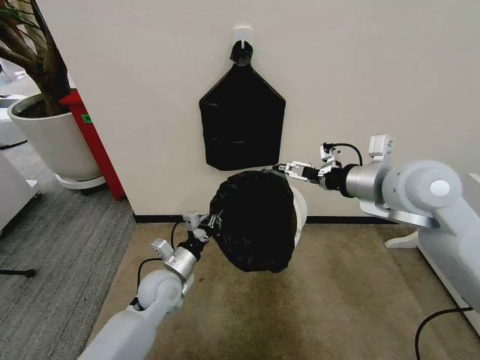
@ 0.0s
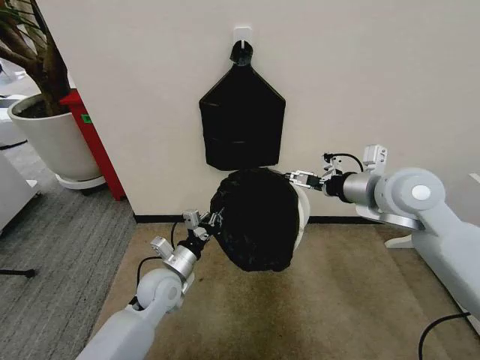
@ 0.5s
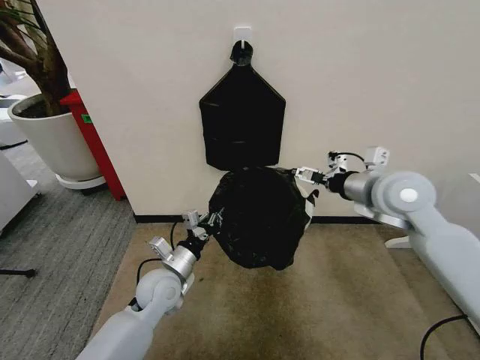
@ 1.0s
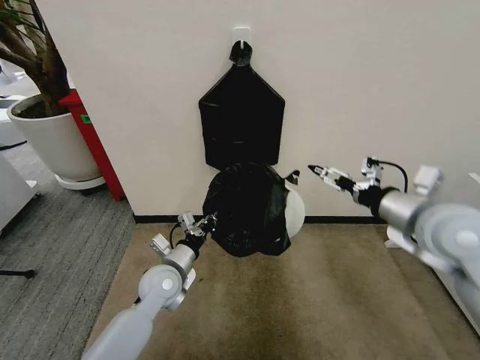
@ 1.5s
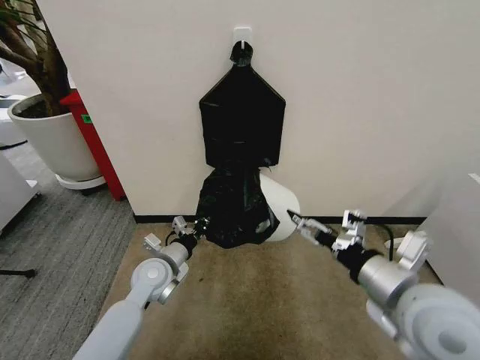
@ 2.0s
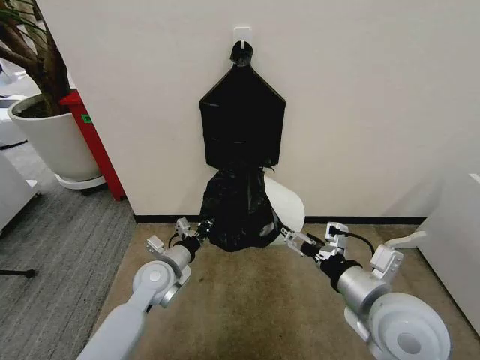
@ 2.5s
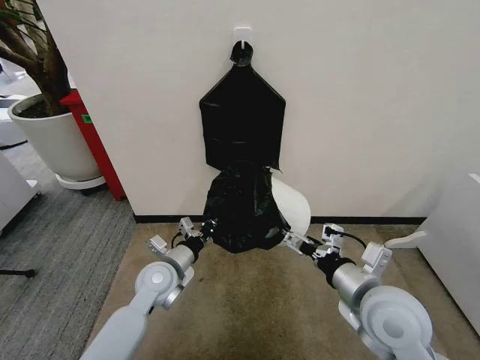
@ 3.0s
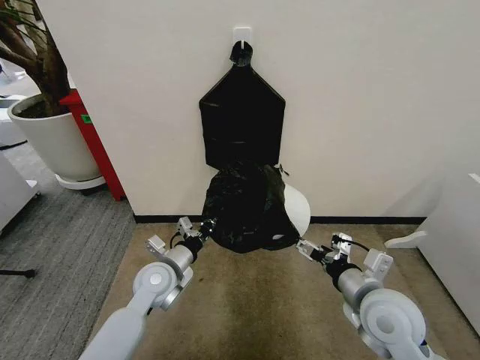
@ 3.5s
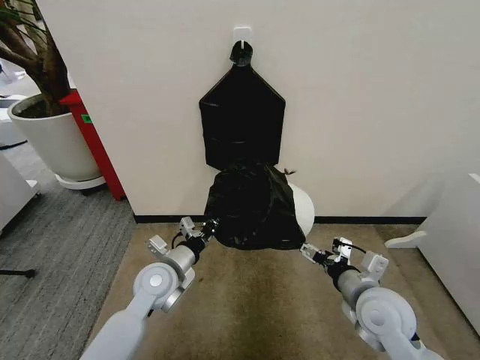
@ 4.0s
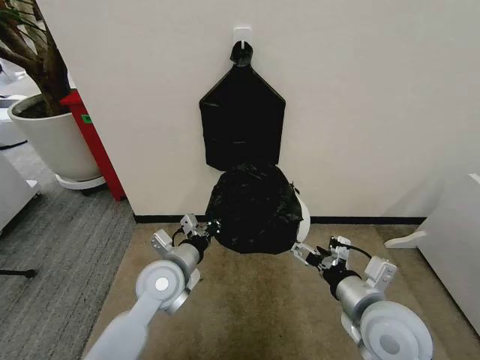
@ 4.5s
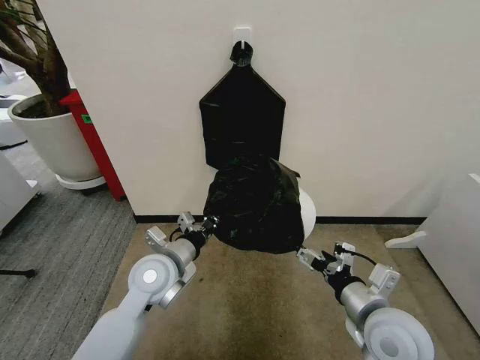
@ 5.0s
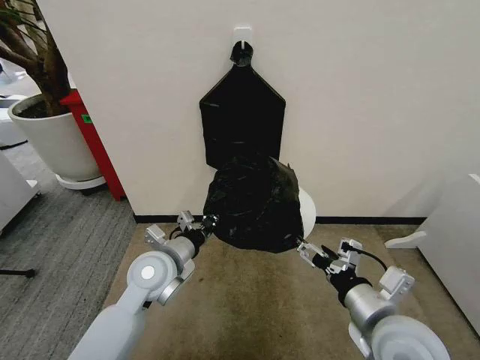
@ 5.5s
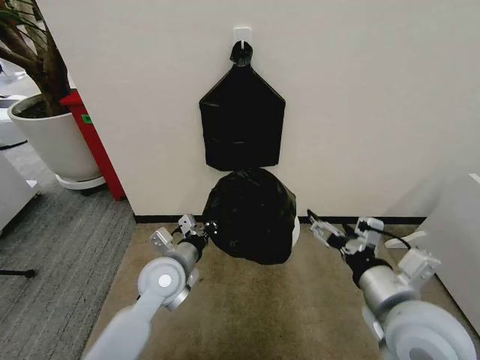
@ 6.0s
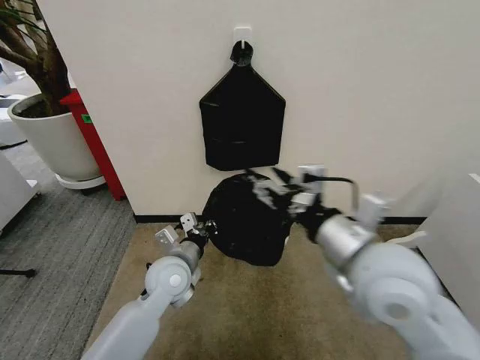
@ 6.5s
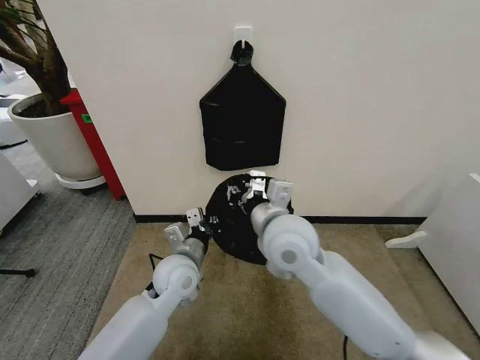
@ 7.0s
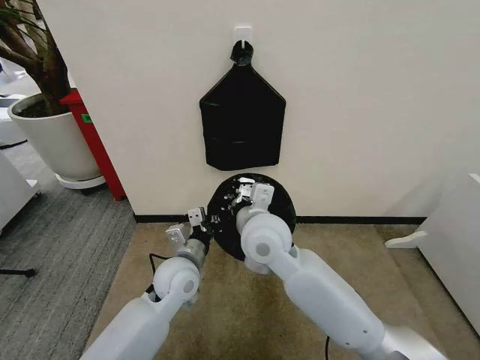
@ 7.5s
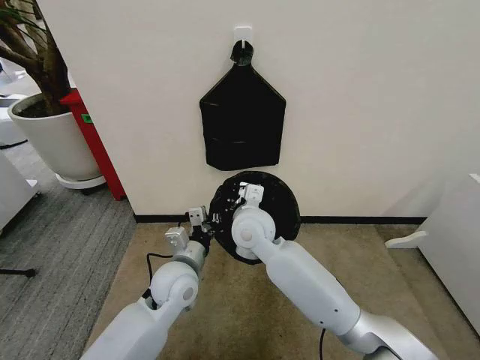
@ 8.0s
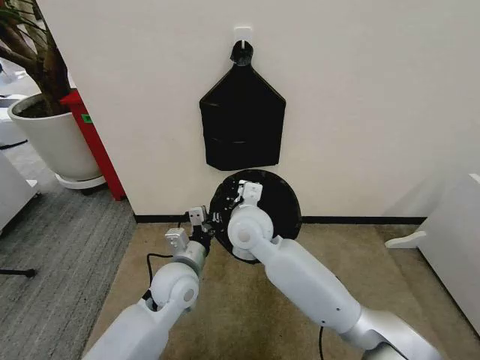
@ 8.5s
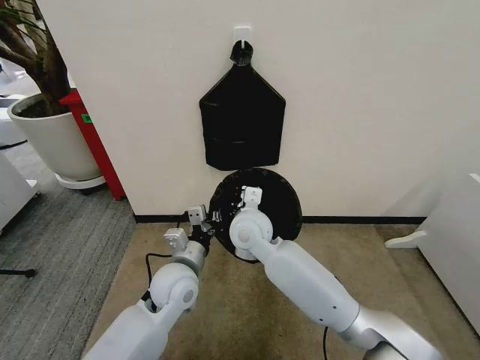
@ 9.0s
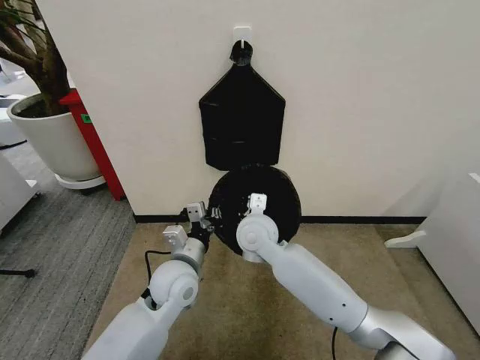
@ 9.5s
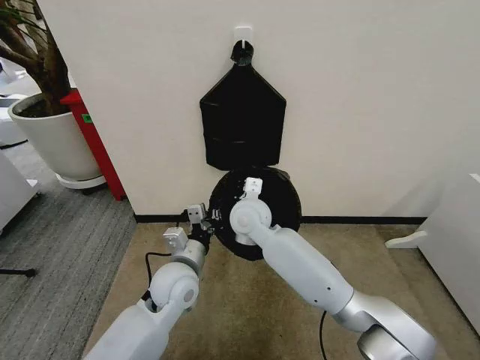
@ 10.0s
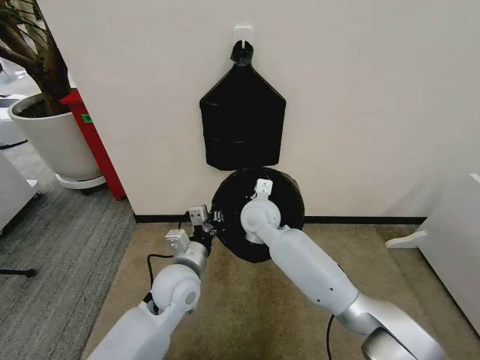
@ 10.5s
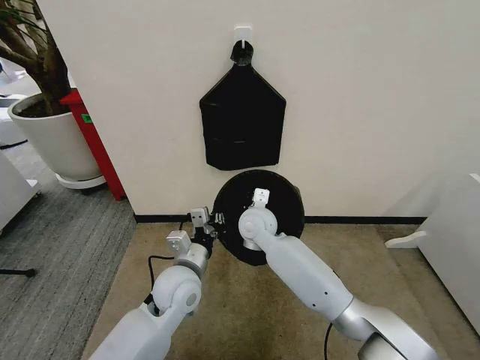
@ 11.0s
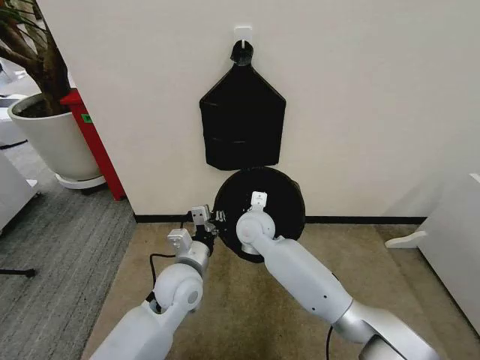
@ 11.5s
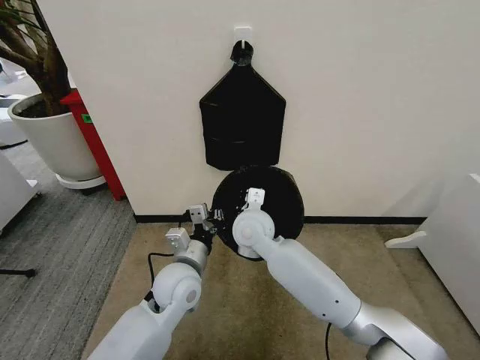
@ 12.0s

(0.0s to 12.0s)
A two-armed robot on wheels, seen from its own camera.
Task of the whole recording: Place the garbage bag over the trash bin.
0.0s - 2.0s: The right gripper goes roughly 20 cm backward and downward.
2.0s - 4.0s: The right gripper goes roughly 15 cm downward and forward.
4.0s - 6.0s: The right gripper is displaced upward and backward by approximately 15 cm.
6.0s - 8.0s: The right gripper heads to the left and forward, covering about 30 cm, and closes its fingers.
8.0s - 10.0s: There are only small adjustments of the grippers.

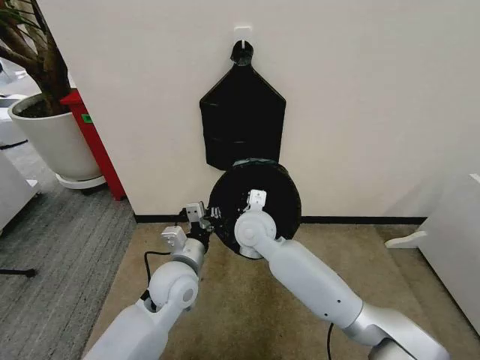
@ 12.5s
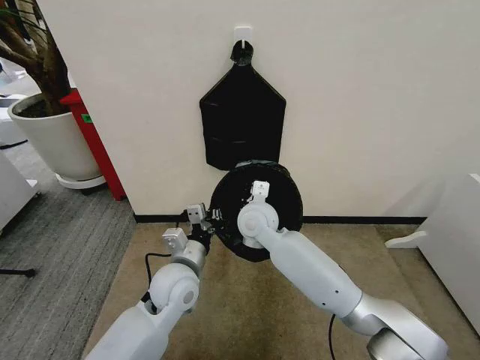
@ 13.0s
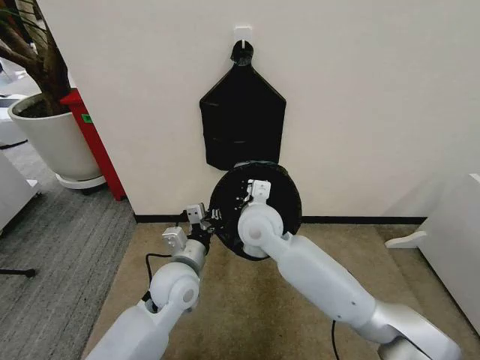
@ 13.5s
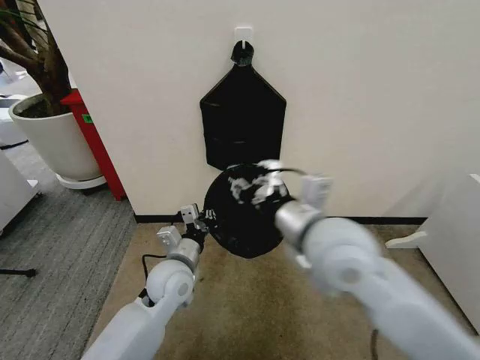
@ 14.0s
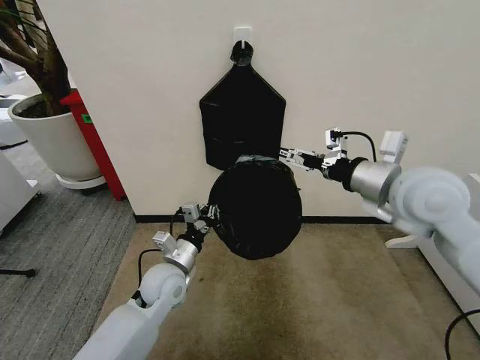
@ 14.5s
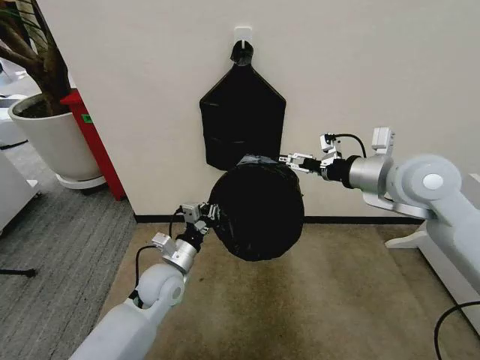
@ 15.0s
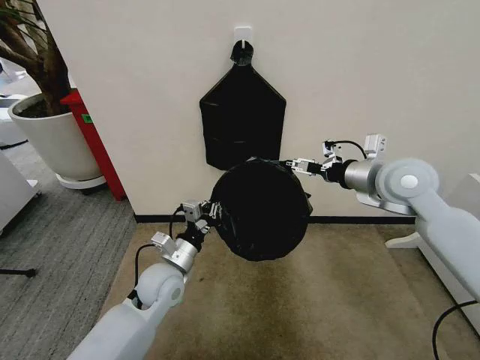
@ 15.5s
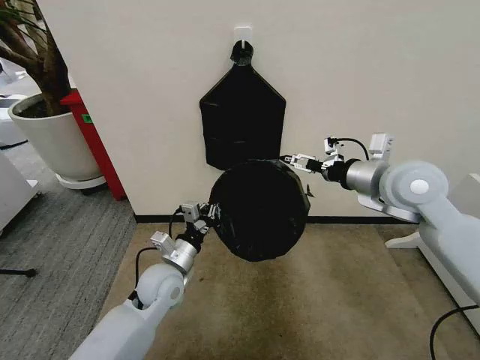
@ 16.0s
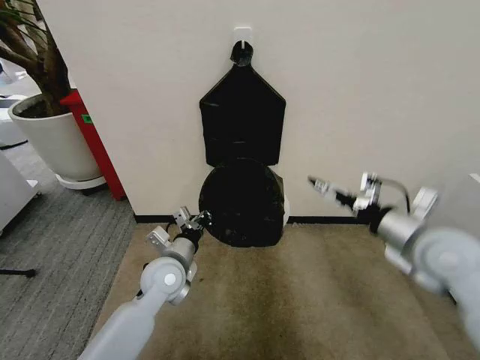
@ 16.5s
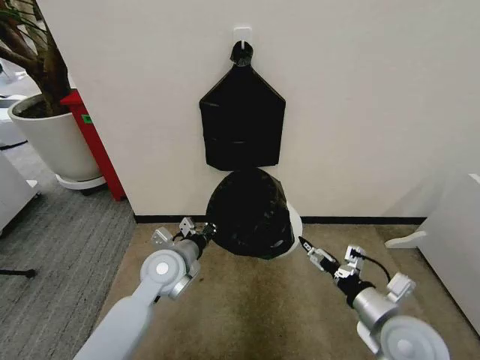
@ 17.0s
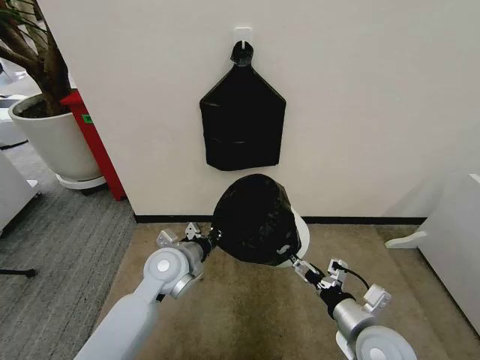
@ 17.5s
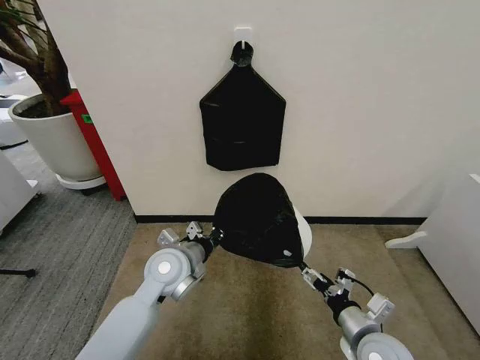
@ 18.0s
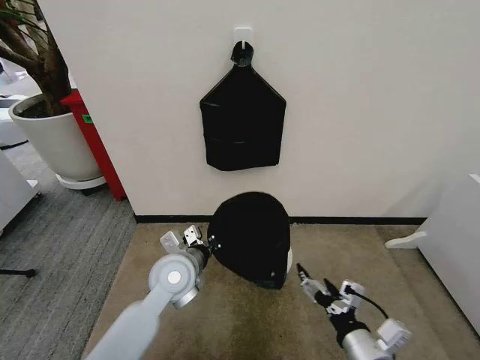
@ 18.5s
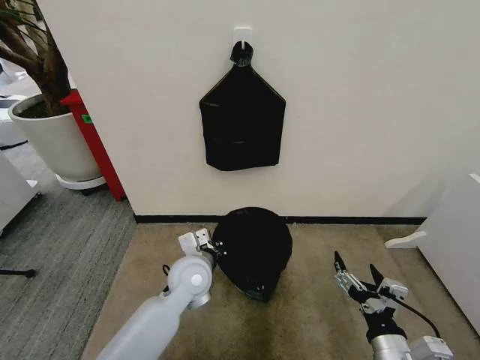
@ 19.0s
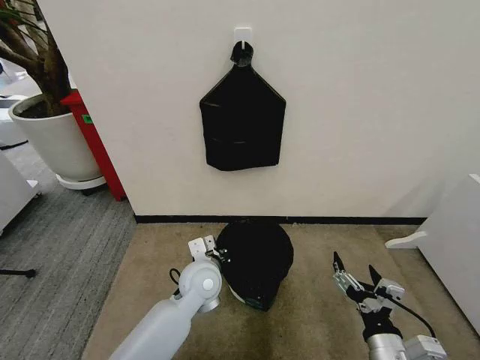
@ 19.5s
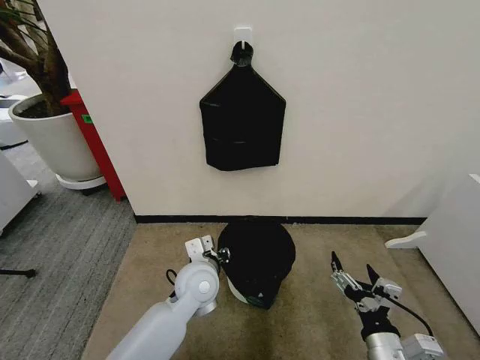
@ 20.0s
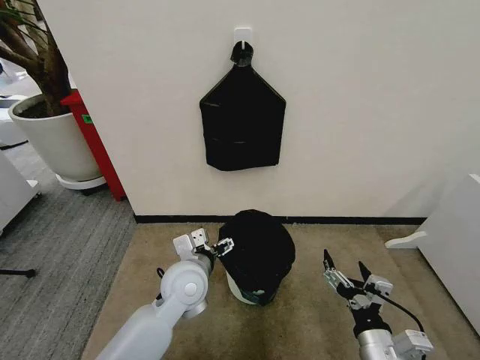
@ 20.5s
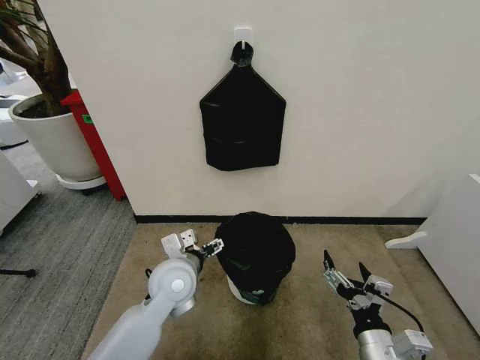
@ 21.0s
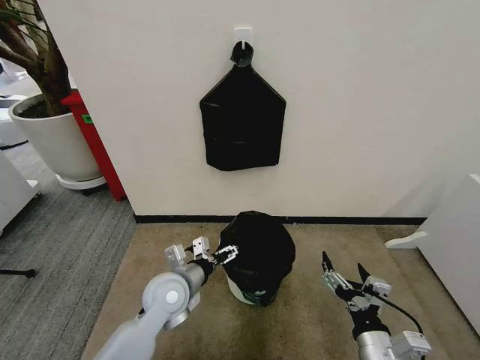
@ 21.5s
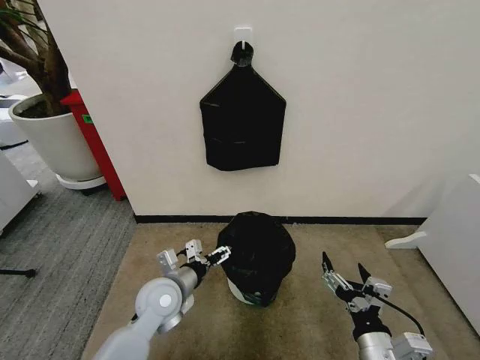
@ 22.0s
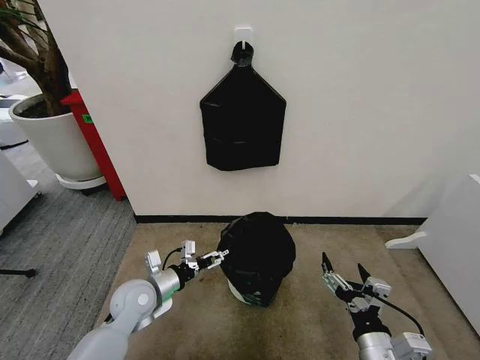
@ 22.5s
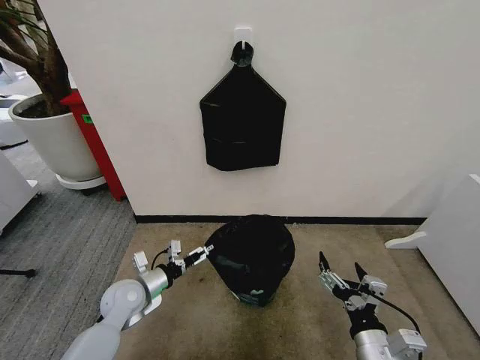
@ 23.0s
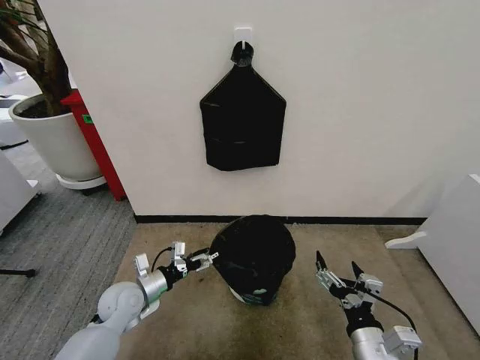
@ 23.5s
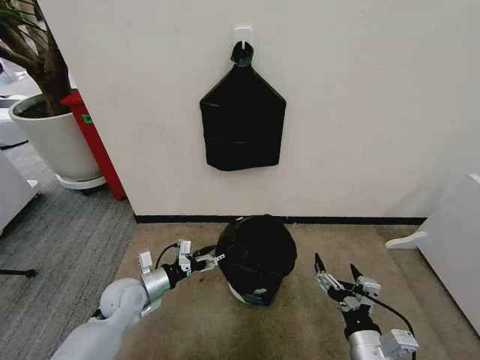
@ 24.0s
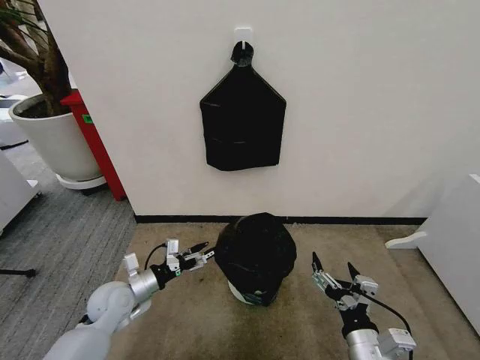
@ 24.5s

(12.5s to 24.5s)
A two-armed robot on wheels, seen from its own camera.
Task of the whole recording: Place the garbage bag over the trash bin.
12.5s - 14.5s: The right gripper travels to the right and upward by about 30 cm, and opens; the left gripper moves some 5 cm.
14.5s - 16.5s: The right gripper goes about 10 cm to the right and downward, and reaches roughly 5 cm forward, then returns.
16.5s - 18.5s: The right gripper moves backward, downward and to the left, roughly 30 cm. The left gripper moves some 5 cm.
18.5s - 20.5s: The left gripper opens.
20.5s - 22.5s: The left gripper shifts approximately 15 cm to the left and downward.
22.5s - 24.5s: The left gripper moves to the left, approximately 5 cm.

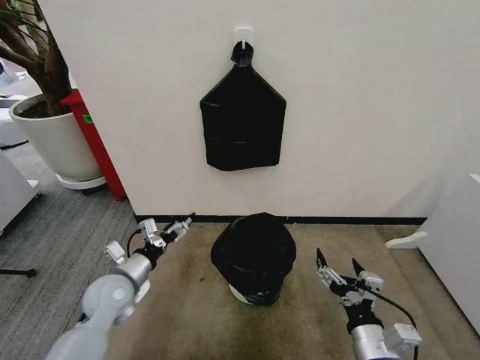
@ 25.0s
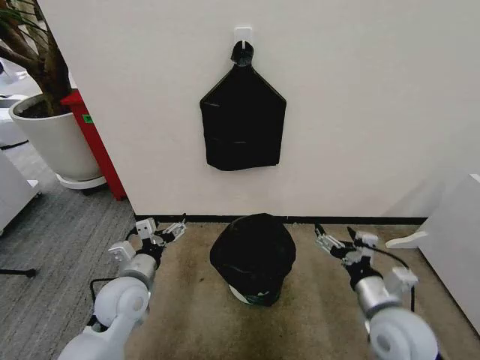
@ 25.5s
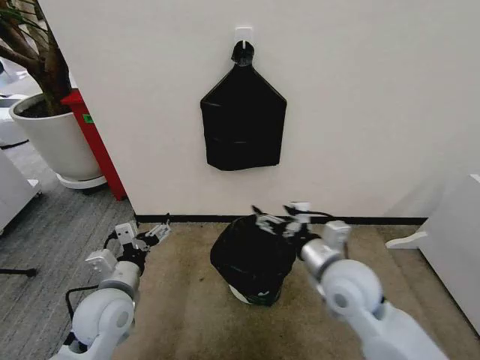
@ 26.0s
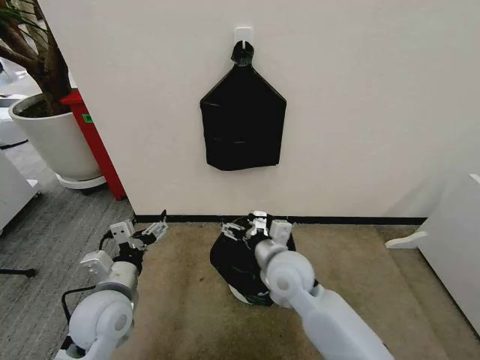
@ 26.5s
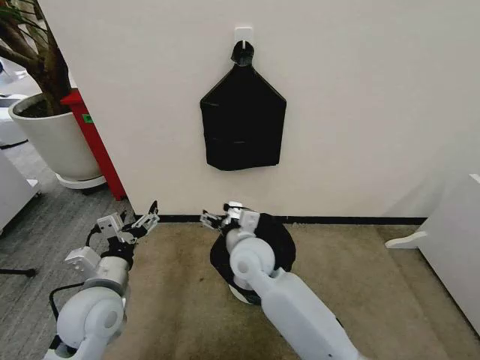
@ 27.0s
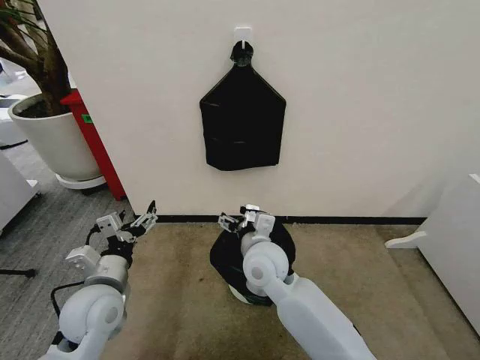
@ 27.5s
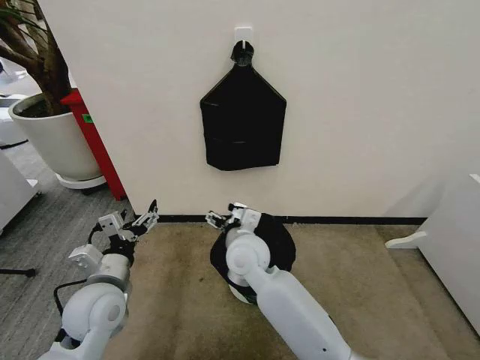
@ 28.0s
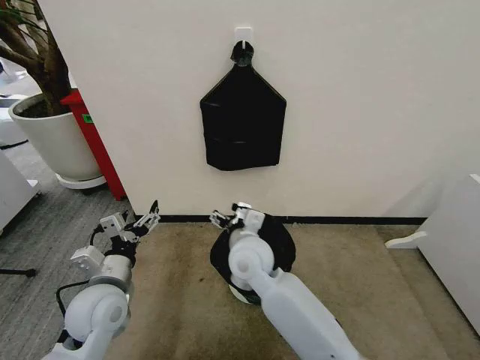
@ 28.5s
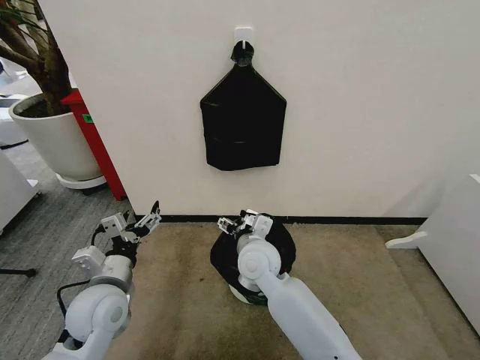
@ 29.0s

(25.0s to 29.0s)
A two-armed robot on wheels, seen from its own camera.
Task of the whole recording: Place the garbage bag over the trash bin.
25.0s - 27.0s: The right gripper goes some 30 cm forward and to the left. The left gripper shifts approximately 10 cm upward and backward.
27.0s - 29.0s: The grippers move only a little.
